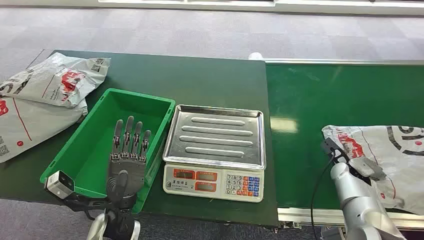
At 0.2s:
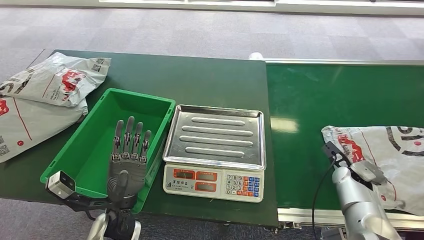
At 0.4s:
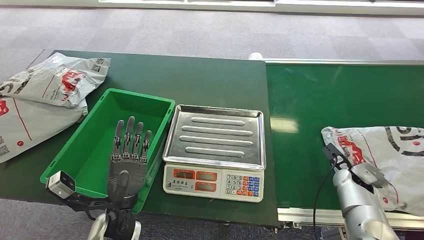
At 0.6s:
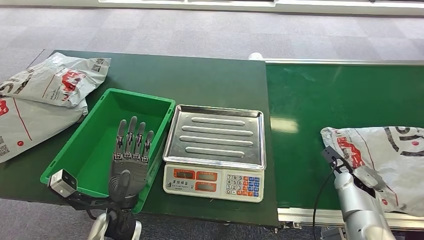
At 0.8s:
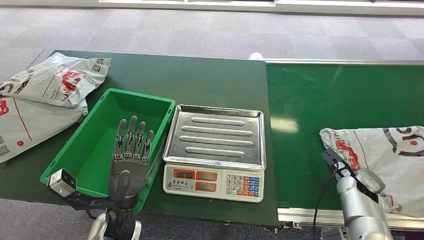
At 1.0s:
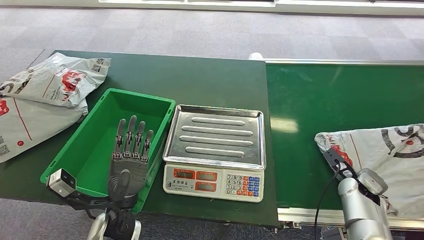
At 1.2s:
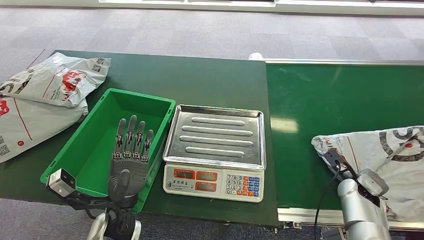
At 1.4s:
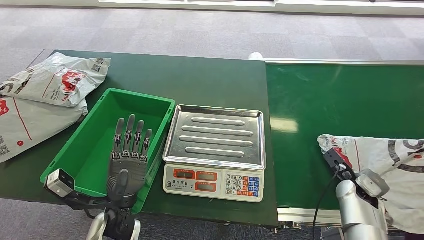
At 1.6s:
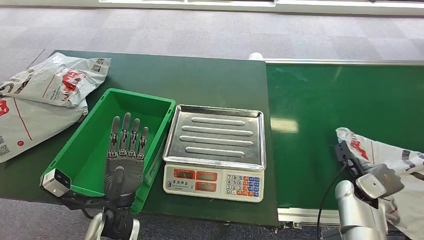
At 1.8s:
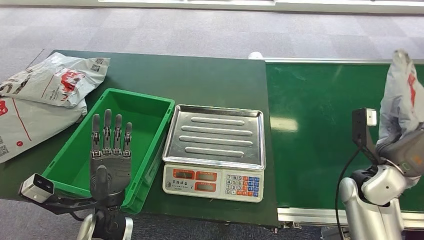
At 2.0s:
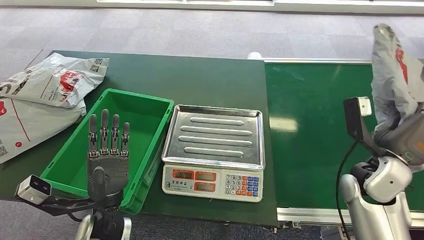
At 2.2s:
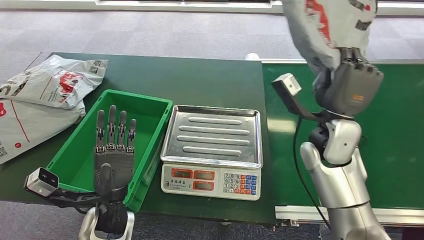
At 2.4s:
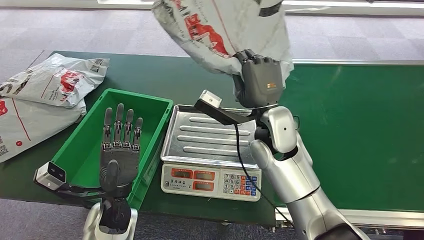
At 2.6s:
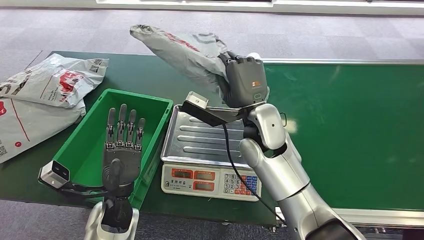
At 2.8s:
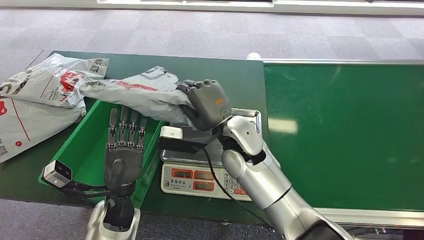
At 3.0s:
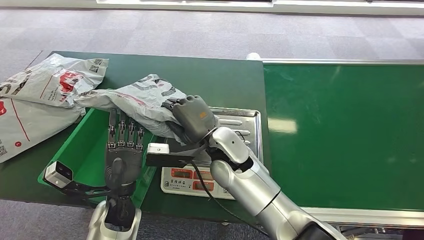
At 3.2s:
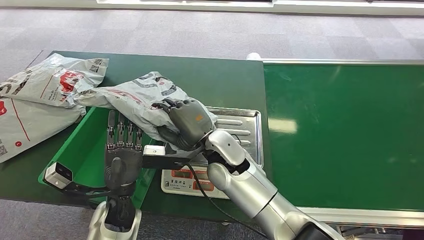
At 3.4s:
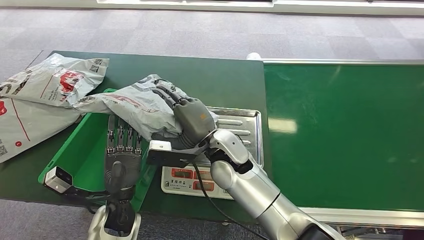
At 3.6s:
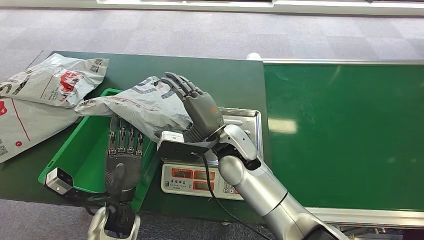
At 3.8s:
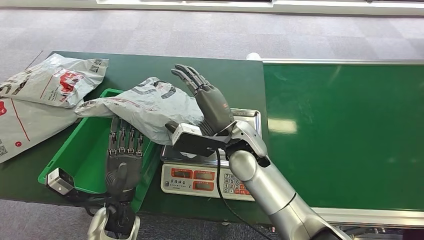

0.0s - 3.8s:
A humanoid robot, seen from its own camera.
Step, 0.0s - 2.2s: Pick up the package from the conveyor belt.
Step, 2.4s - 3.8s: Place the package onto the inbound machine.

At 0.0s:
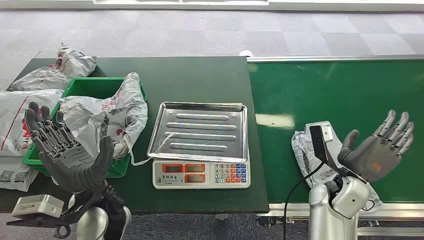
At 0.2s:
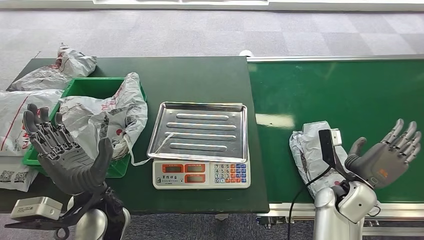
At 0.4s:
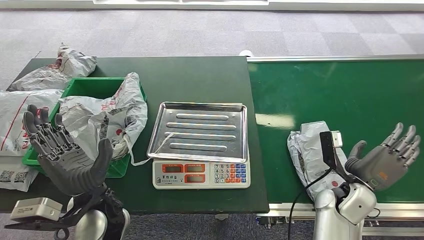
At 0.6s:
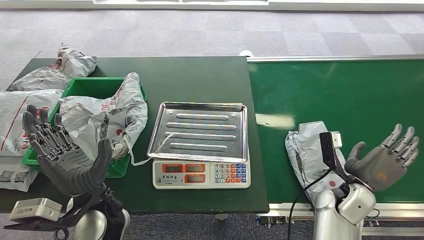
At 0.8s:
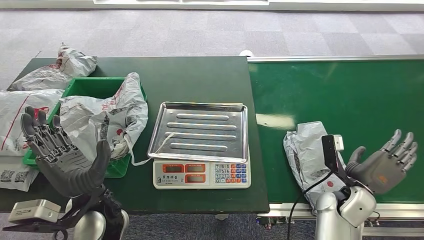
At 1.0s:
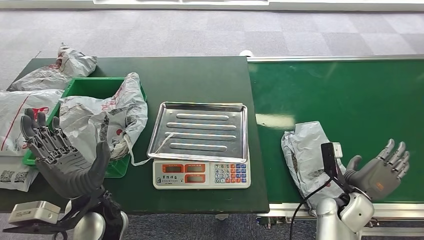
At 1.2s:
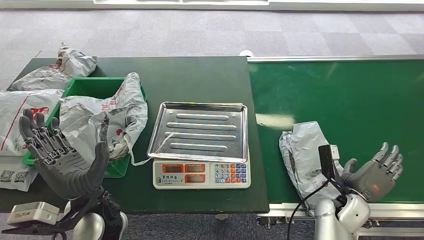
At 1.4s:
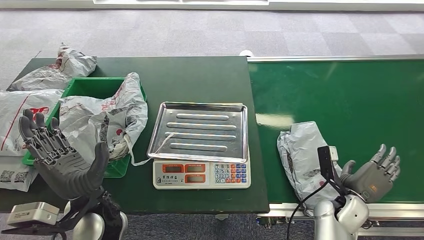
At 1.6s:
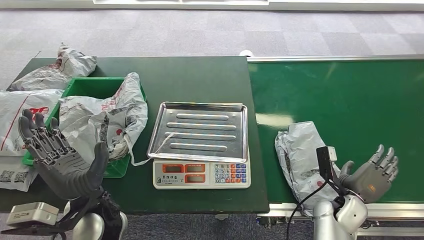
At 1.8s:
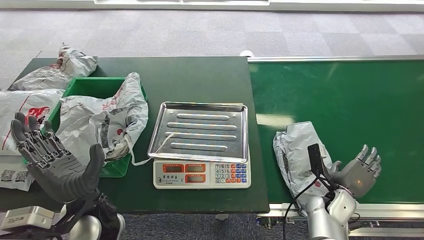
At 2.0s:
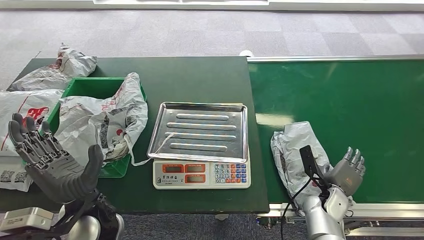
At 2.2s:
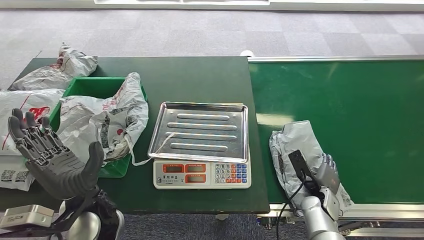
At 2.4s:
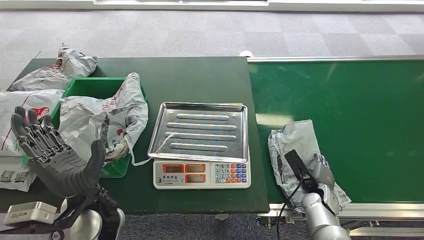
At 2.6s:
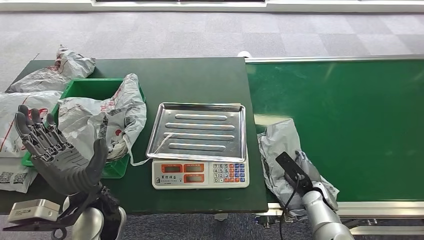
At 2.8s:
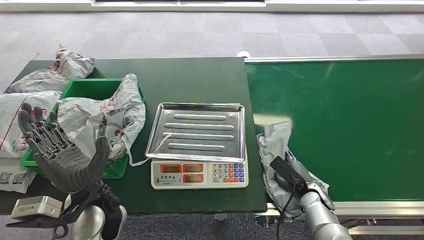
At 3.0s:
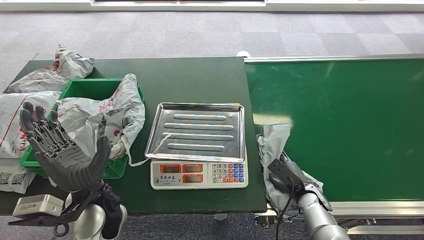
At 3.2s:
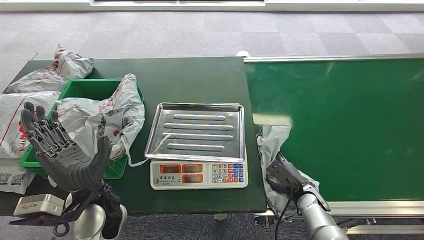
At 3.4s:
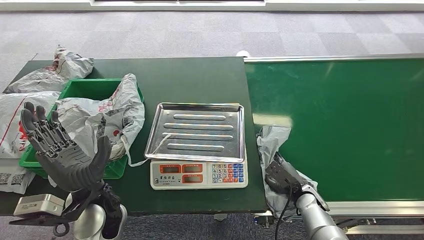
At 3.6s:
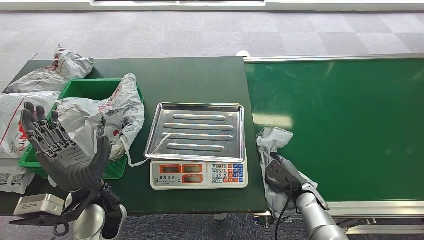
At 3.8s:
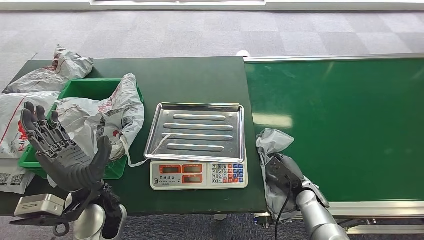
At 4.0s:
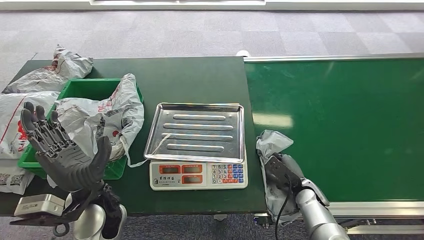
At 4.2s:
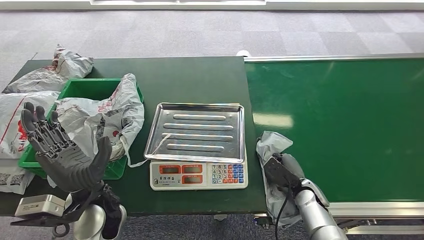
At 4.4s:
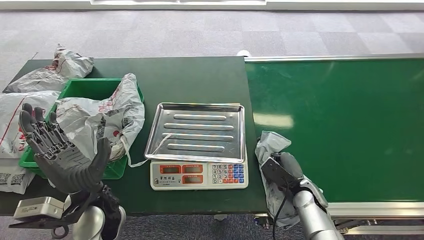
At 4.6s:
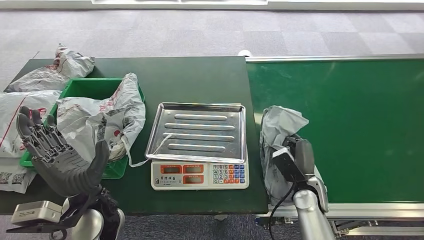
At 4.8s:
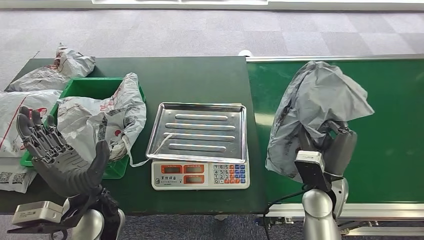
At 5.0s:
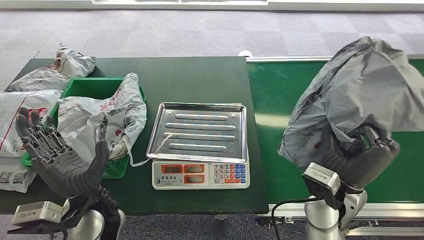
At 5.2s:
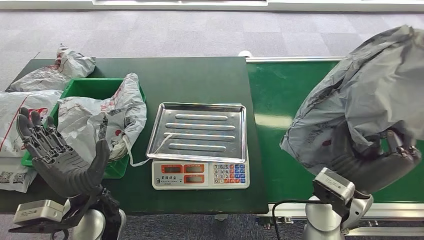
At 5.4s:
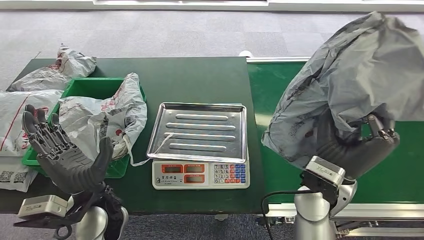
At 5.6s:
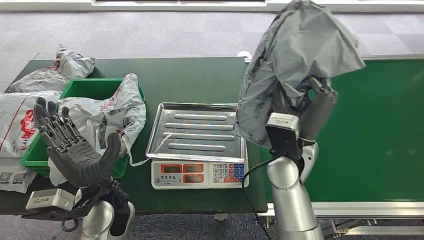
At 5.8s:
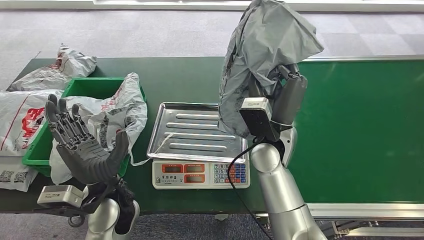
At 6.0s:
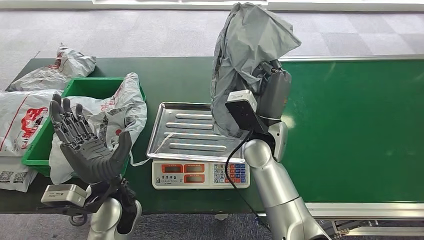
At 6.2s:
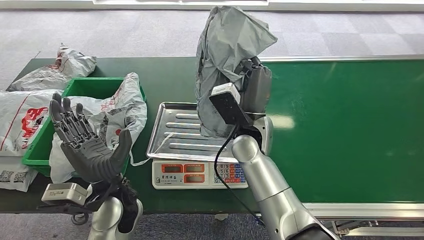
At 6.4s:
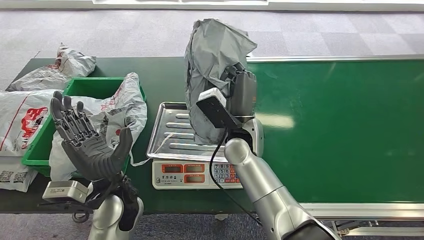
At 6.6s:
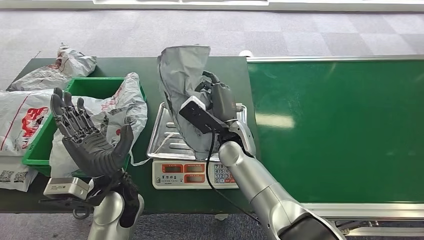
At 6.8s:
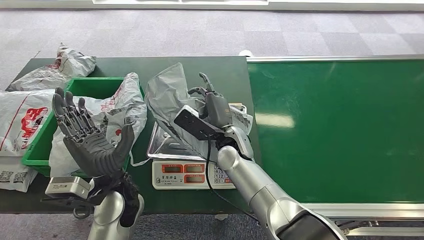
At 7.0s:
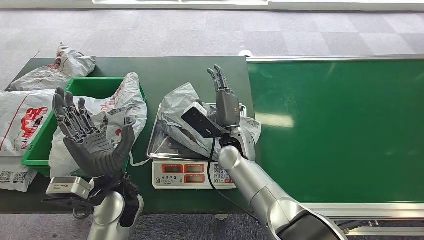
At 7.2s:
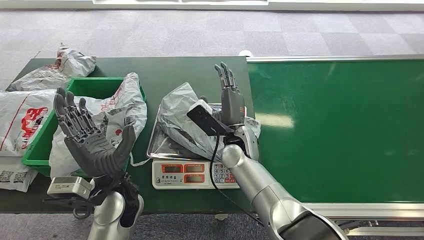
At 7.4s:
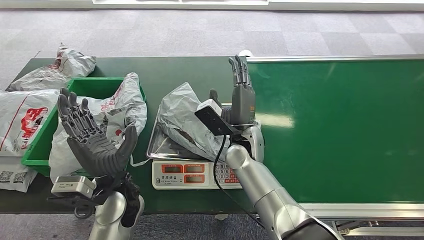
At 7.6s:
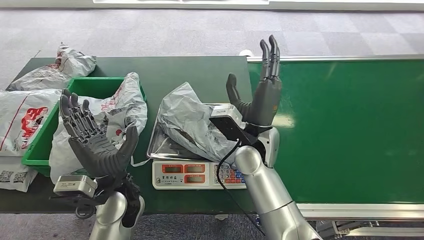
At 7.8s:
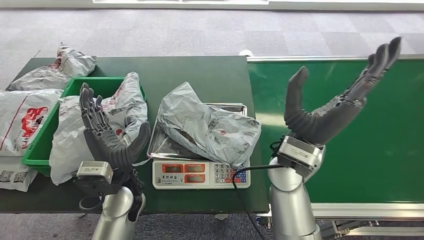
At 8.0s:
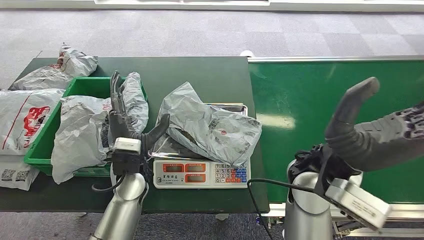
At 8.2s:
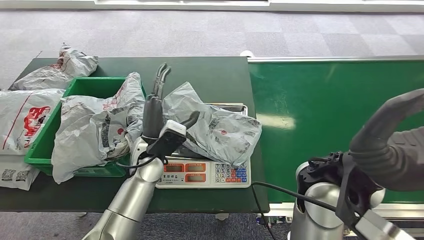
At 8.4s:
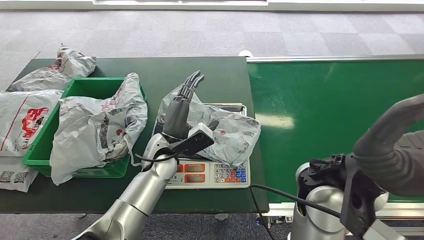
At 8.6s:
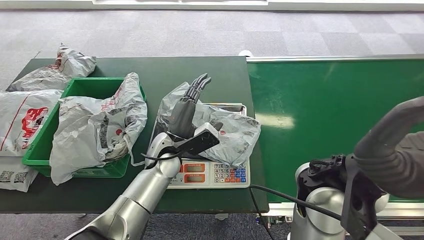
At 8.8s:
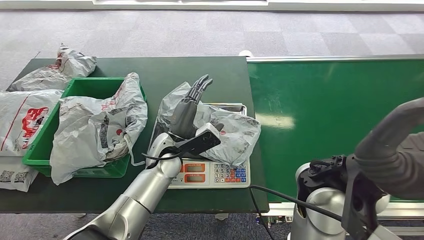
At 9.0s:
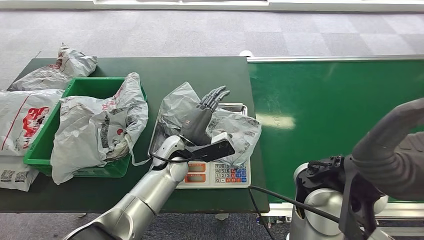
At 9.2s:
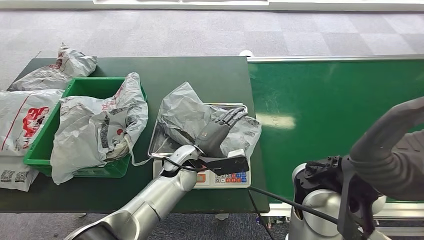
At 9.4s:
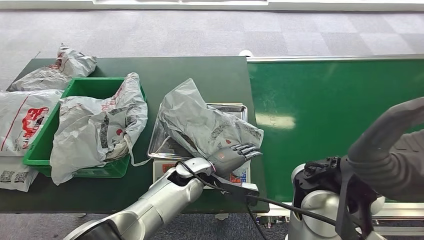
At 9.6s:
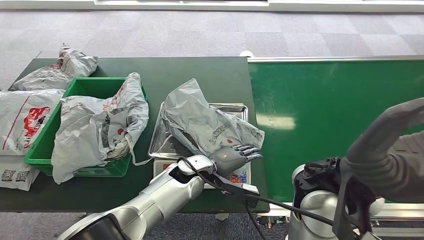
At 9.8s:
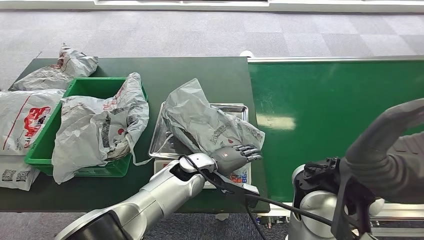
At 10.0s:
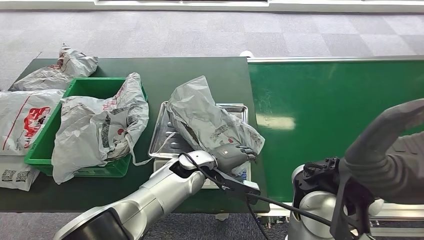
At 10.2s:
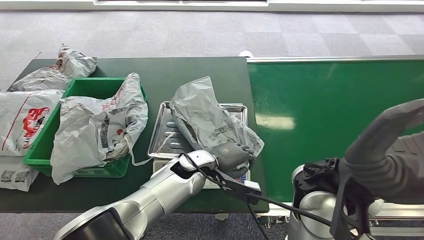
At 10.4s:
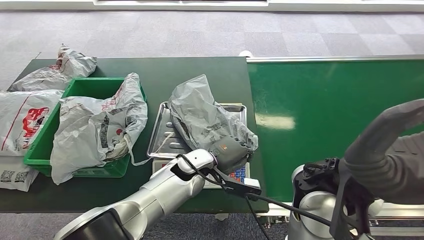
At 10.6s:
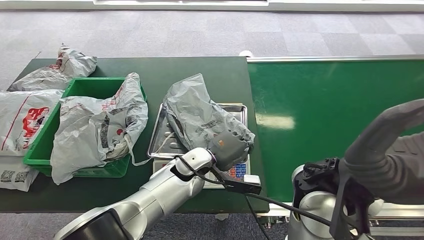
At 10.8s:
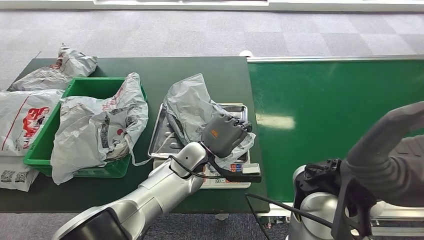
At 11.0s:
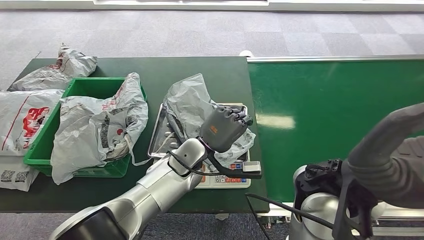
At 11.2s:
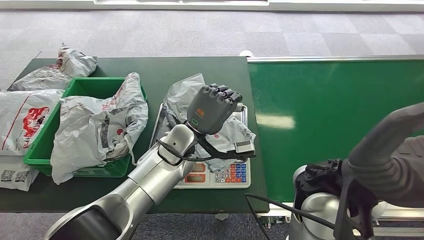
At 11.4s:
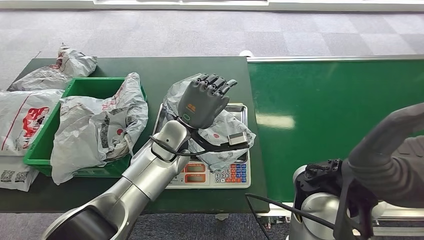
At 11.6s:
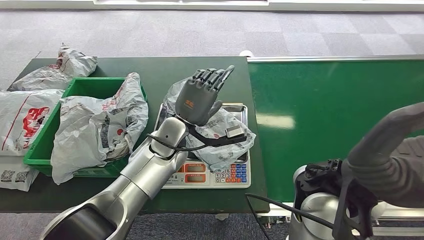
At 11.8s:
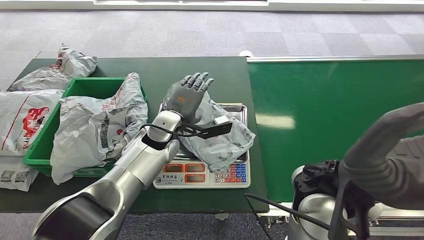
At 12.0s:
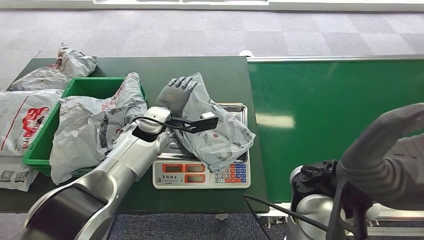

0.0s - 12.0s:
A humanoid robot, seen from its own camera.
Step, 0.0s - 6.0s: Pick up the package from the conveyor belt.
Step, 6.2s - 8.6s: Place the package onto the inbound machine.
3.0s - 4.4s: The hands stay close to where they were, moving slightly.

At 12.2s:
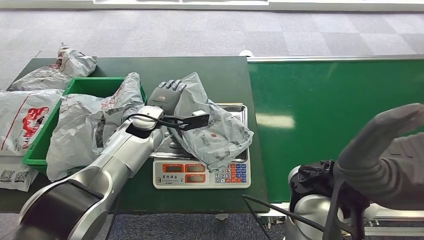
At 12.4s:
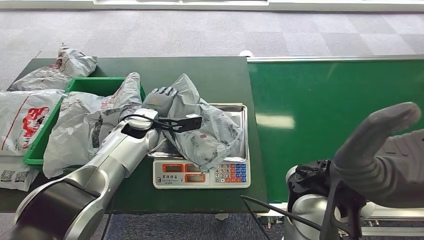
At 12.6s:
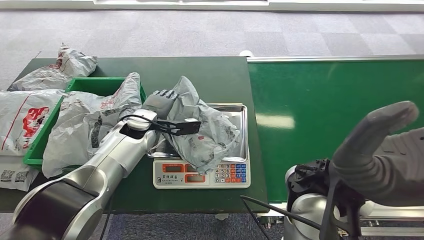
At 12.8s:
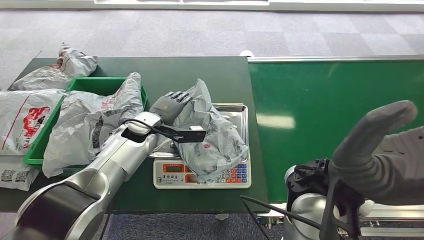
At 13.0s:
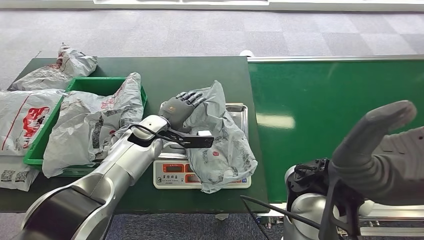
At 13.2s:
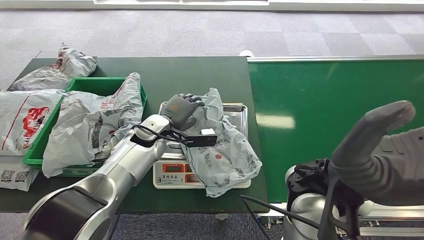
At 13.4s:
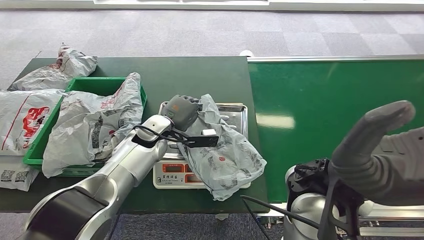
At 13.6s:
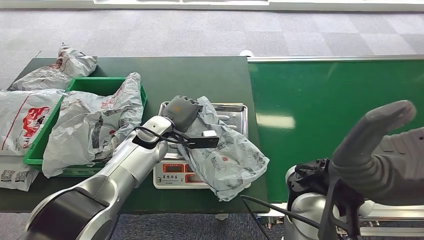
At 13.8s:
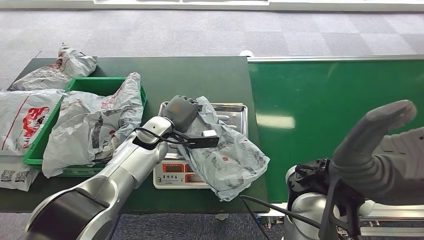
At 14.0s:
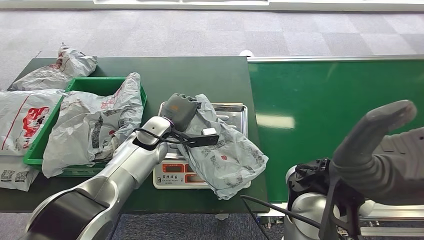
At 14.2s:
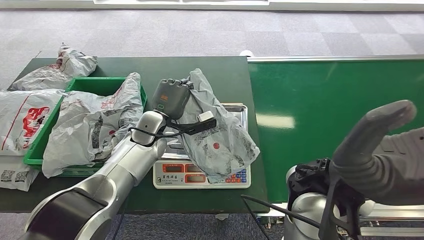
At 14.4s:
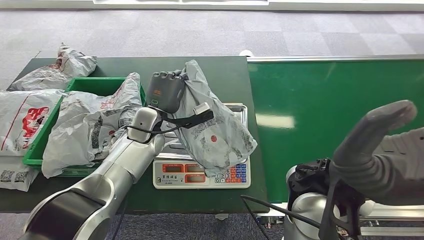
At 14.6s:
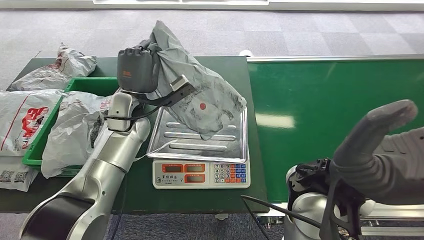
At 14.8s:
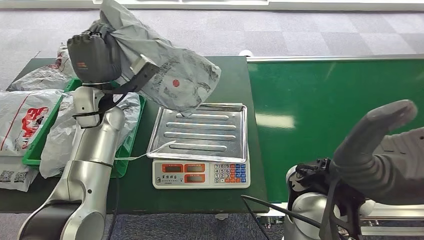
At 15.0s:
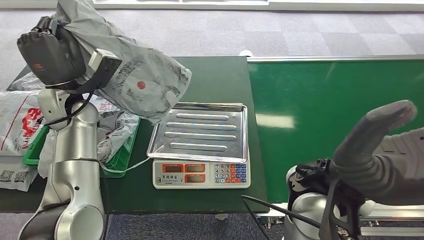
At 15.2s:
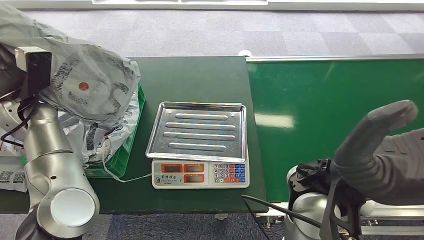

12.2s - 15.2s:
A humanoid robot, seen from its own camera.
Step, 12.2s - 15.0s: Pick up the package from the inbound machine.
